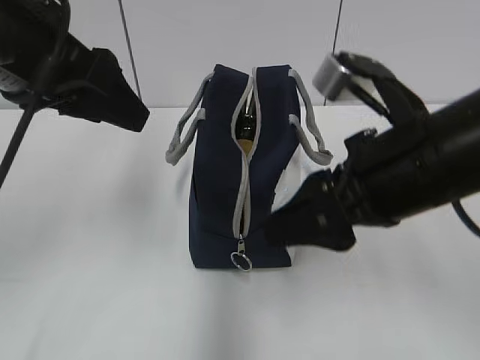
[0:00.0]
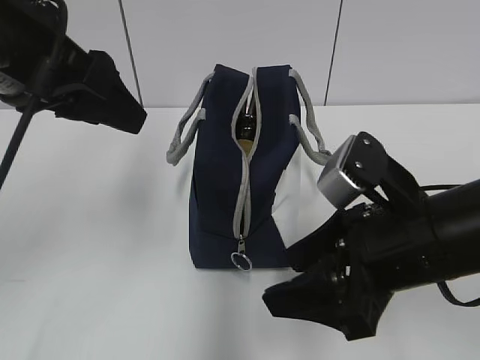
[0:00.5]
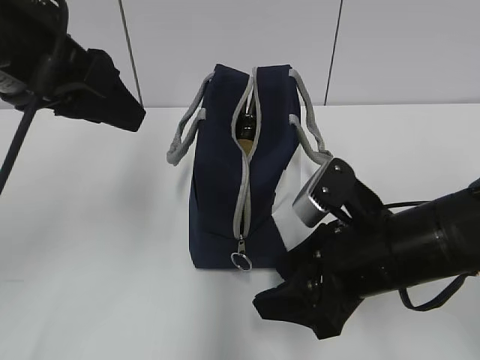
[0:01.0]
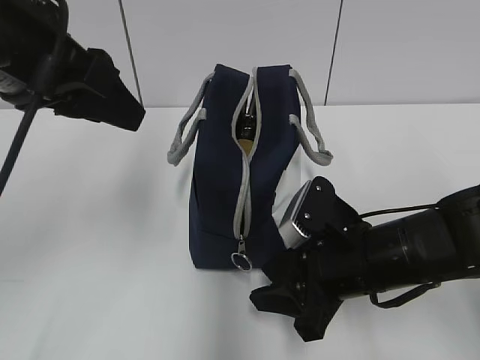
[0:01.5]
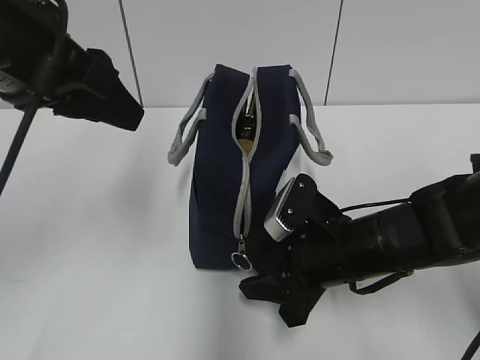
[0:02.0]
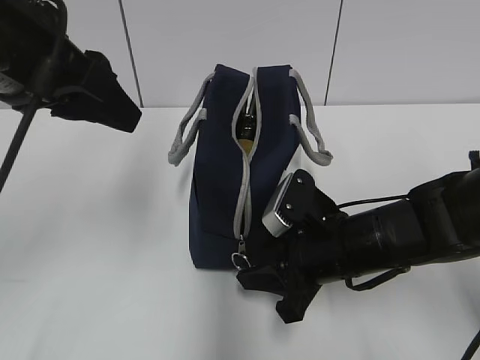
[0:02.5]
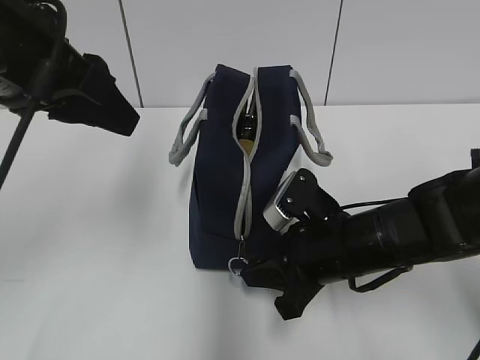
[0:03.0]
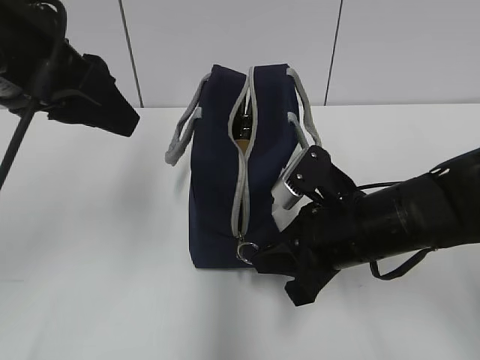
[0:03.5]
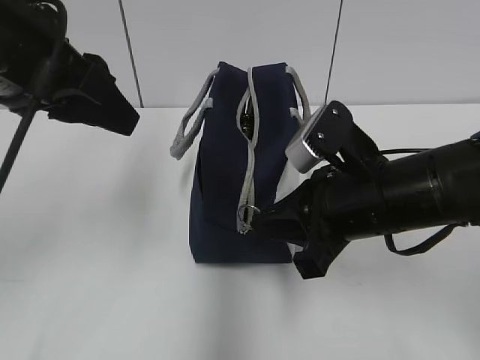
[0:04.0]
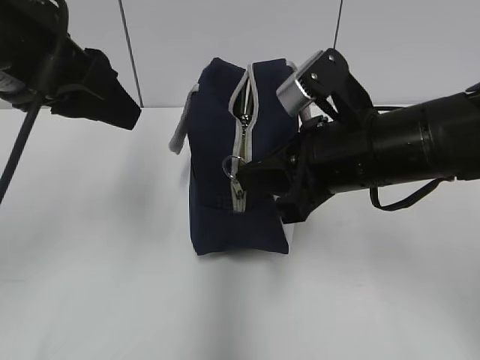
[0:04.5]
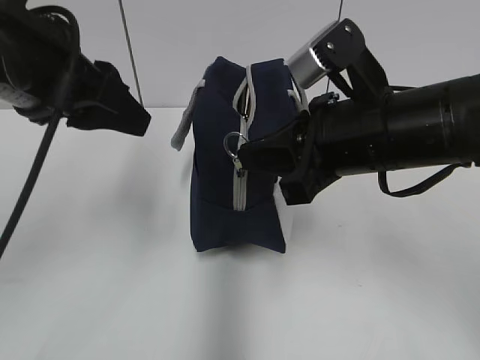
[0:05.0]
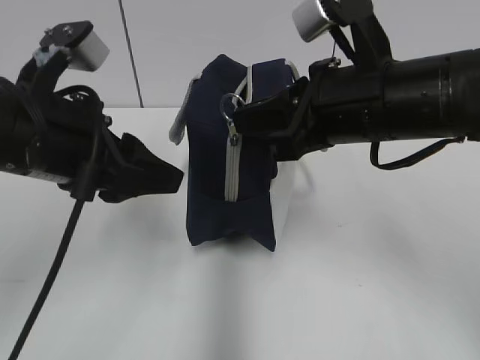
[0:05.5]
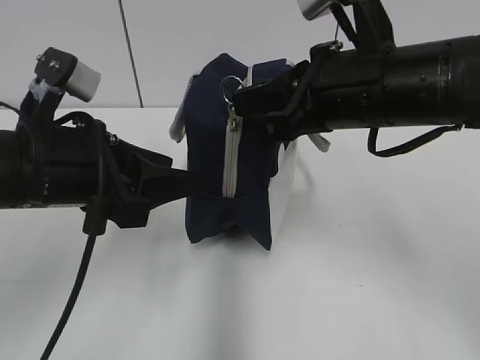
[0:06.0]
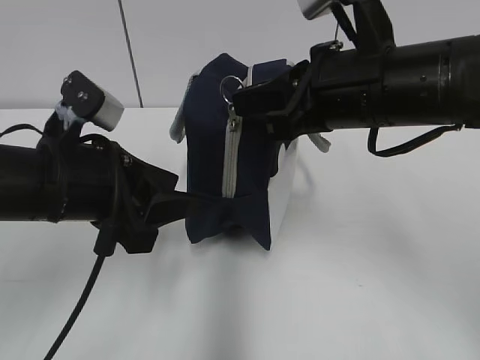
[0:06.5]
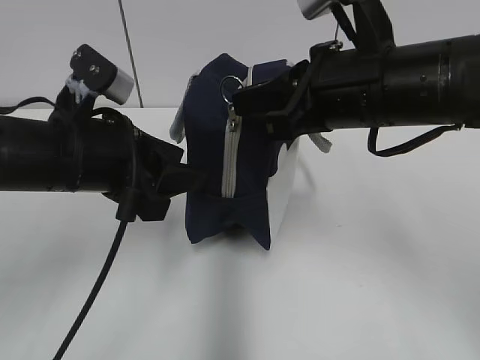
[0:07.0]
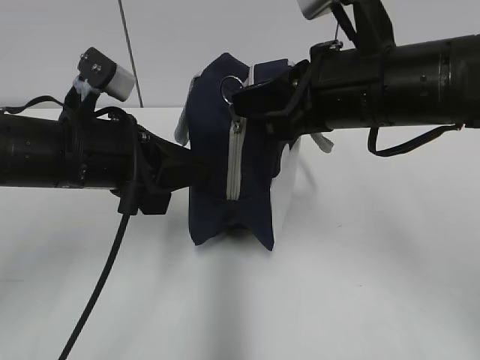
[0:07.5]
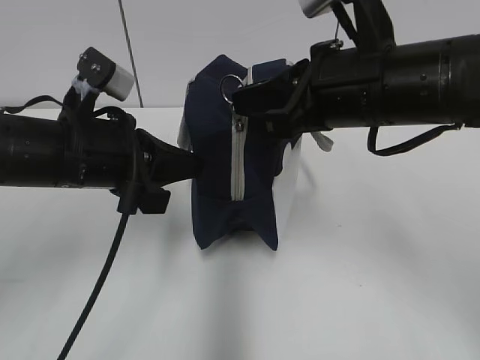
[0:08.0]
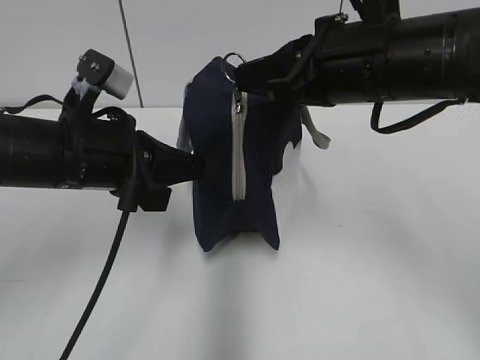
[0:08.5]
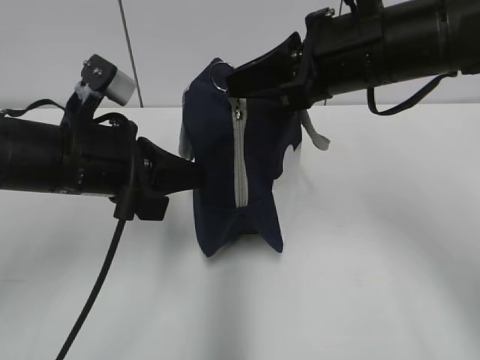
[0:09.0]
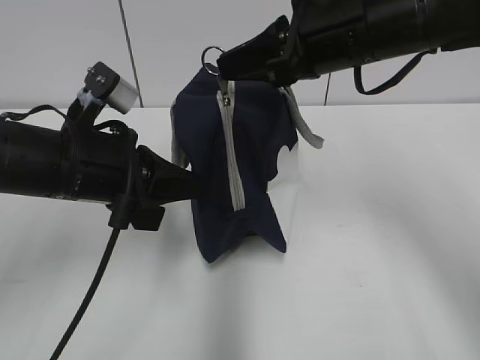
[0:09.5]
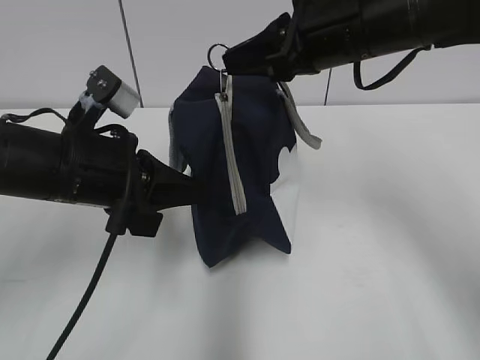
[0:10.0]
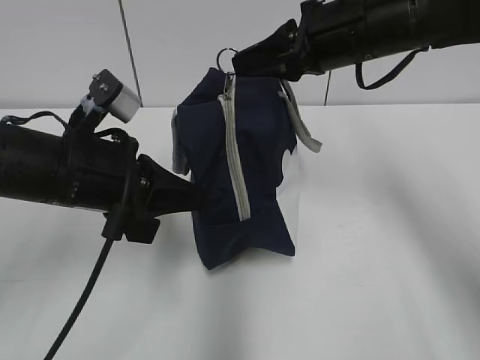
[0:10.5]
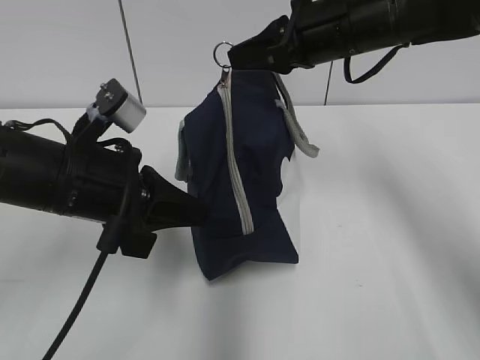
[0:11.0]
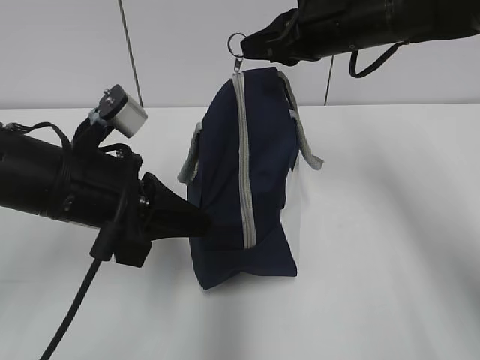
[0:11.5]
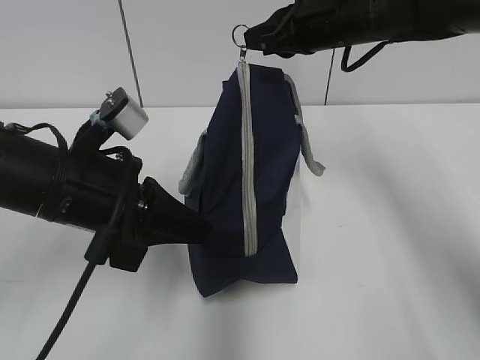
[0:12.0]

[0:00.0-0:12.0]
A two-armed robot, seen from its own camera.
Step, 0:00.0 to 0:07.5: Grab the lunch bag with your left hand.
0:00.0 to 0:02.0: The right gripper heads downward, covering some 15 cm.
0:02.0 to 0:04.0: The right gripper travels upward by roughly 10 cm, and closes up.
0:04.0 to 0:06.0: The left gripper shifts about 10 cm downward, while the right gripper moves upward, roughly 10 cm.
0:06.0 to 0:08.0: The left gripper closes up.
0:08.0 to 0:10.0: The right gripper heads forward, covering about 5 cm.
0:10.0 to 0:12.0: The right gripper goes roughly 10 cm forward.

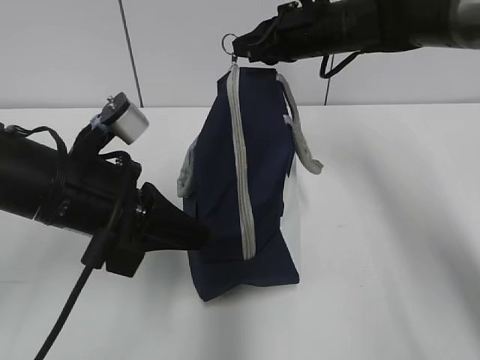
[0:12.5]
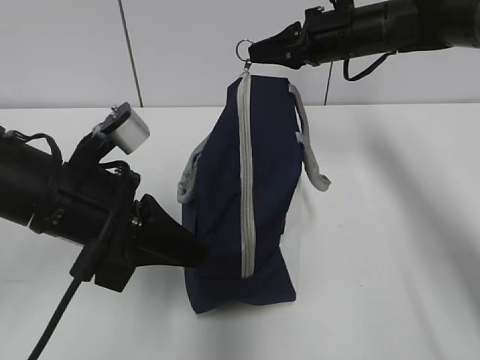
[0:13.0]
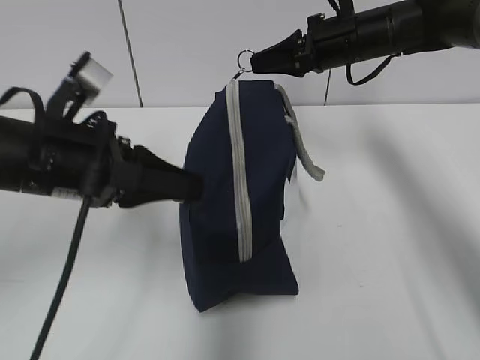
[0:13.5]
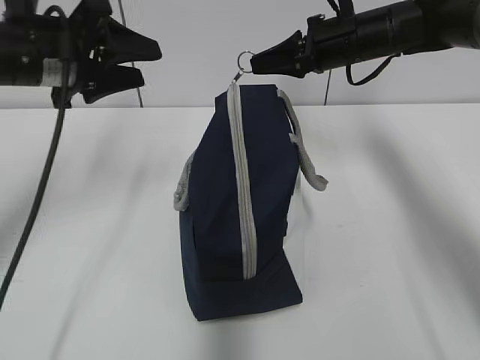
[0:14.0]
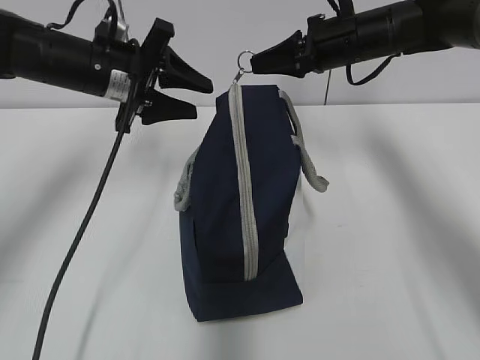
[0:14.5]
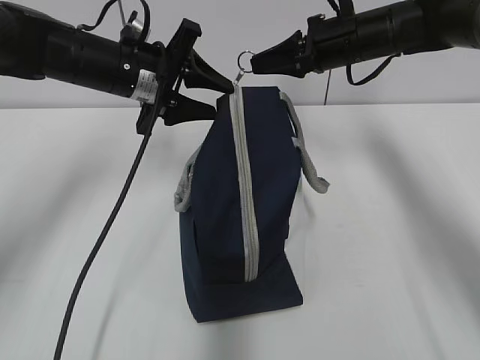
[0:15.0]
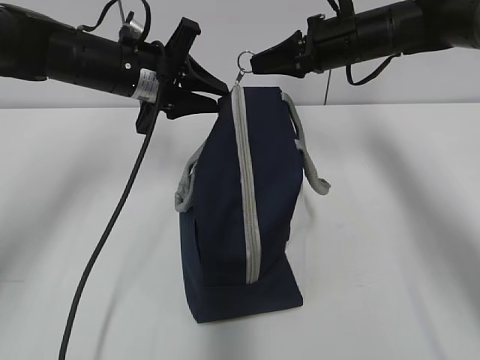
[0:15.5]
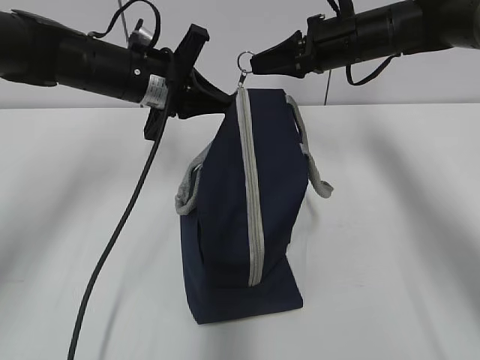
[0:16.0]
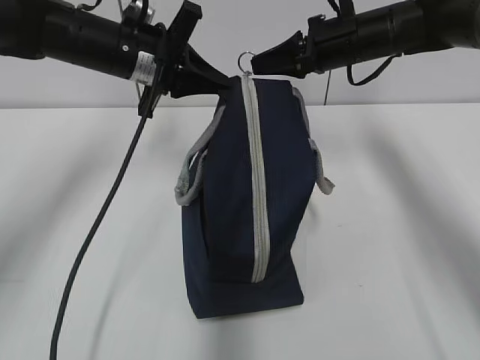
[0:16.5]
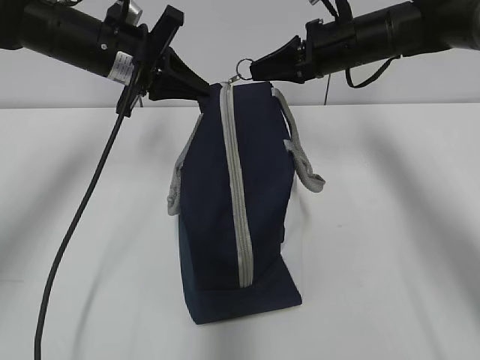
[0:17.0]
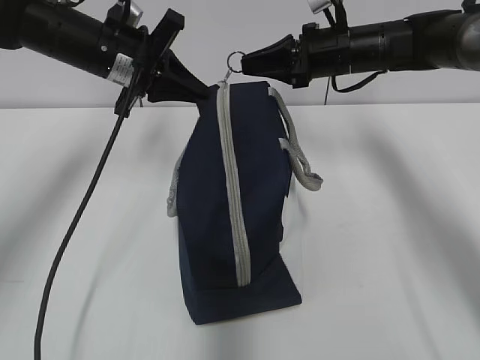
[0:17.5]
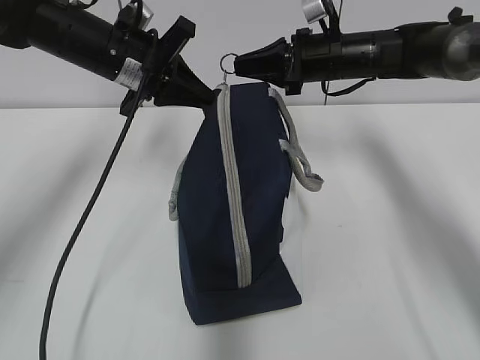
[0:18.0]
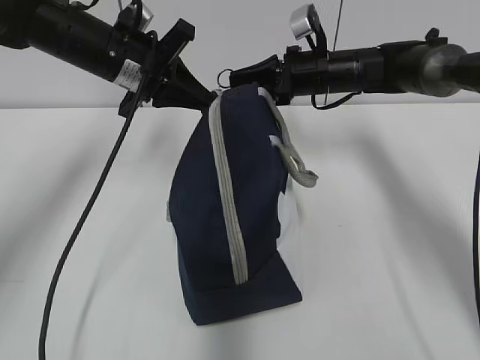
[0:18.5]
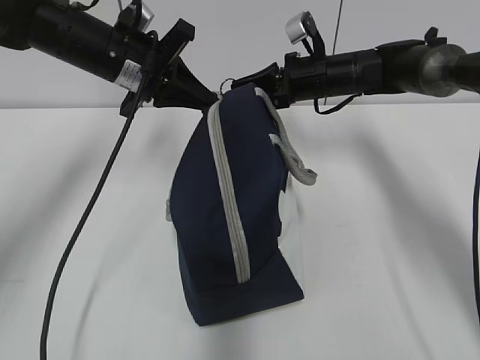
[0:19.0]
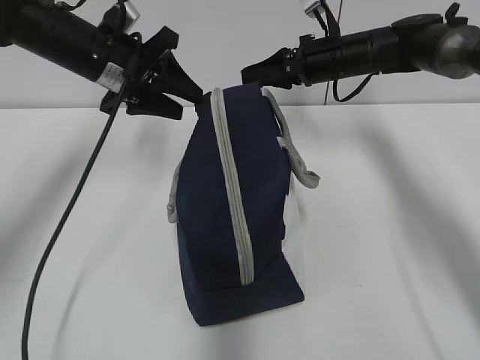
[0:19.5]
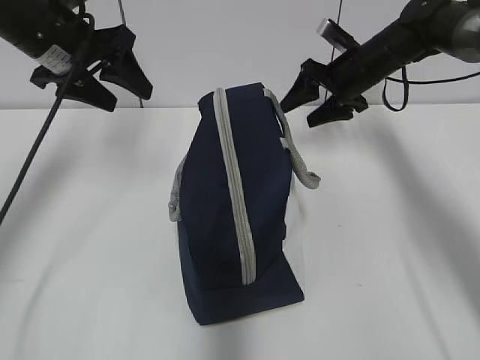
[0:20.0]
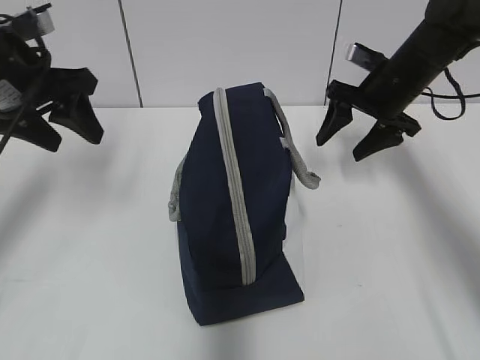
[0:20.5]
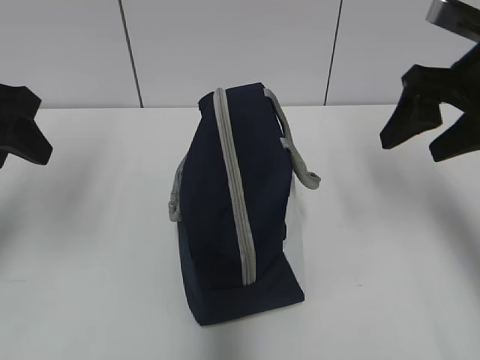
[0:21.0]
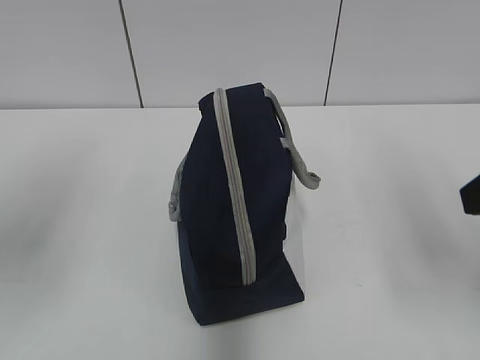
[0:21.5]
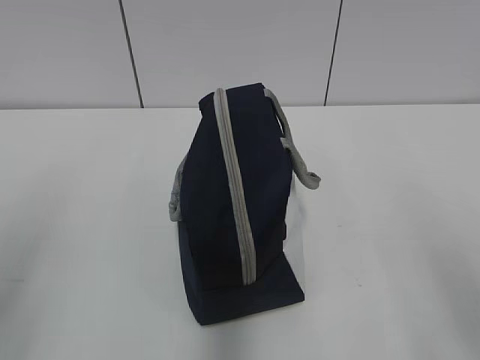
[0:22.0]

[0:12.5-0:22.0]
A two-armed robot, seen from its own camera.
Step, 0:12.5 to 0:19.0: Pull the zipper with your right hand.
0:12.5 to 0:14.5: The left gripper travels forward by roughly 15 cm, and opens up.
0:14.5 to 0:16.5: The left gripper closes up.
0:18.0 to 0:20.0: The right gripper moves to the right, approximately 5 cm, and opens. Meanwhile the left gripper is displaced to the left by some 5 cm, and opens its fingers.
0:20.0 to 0:22.0: The two grippers go approximately 35 cm backward.
